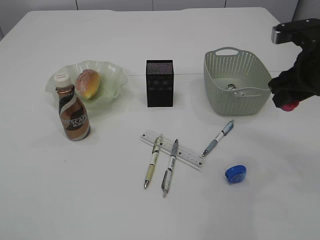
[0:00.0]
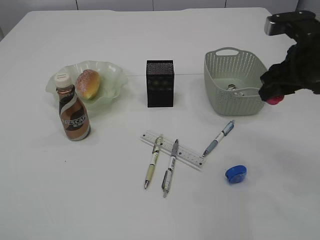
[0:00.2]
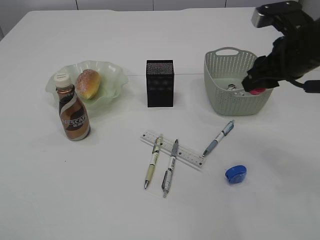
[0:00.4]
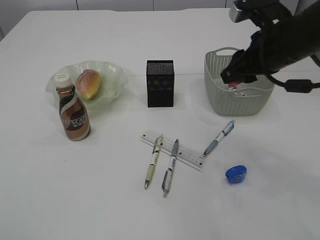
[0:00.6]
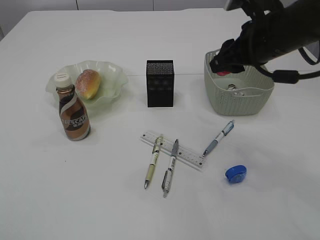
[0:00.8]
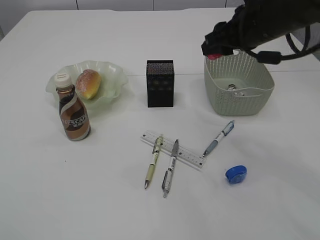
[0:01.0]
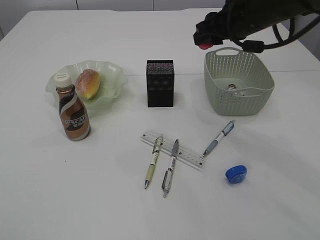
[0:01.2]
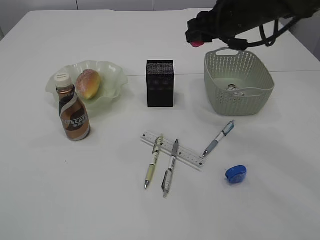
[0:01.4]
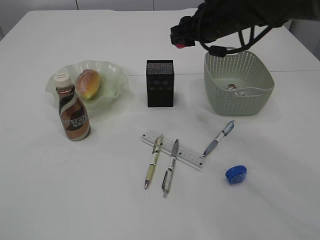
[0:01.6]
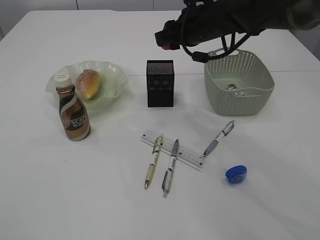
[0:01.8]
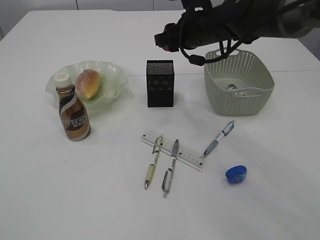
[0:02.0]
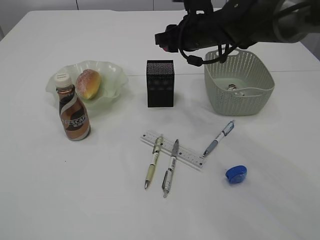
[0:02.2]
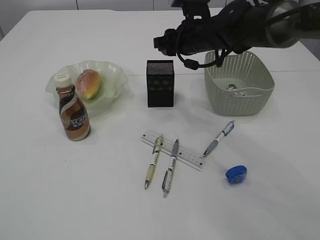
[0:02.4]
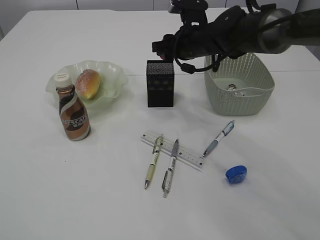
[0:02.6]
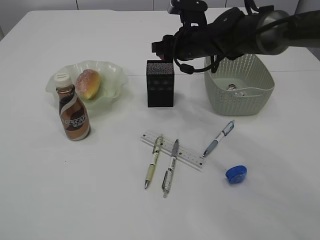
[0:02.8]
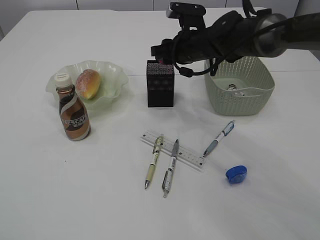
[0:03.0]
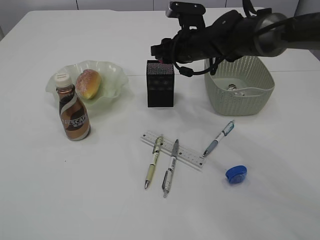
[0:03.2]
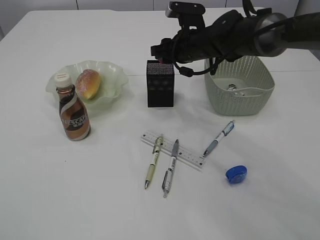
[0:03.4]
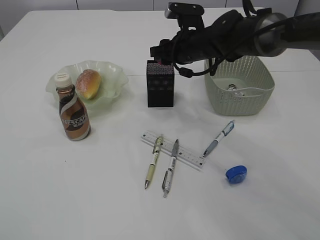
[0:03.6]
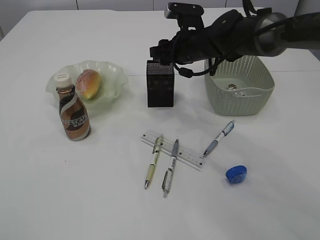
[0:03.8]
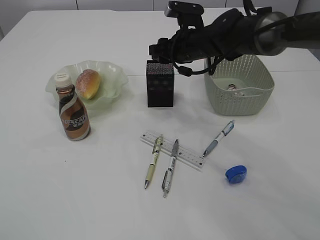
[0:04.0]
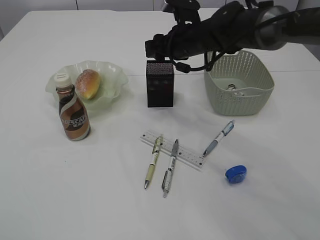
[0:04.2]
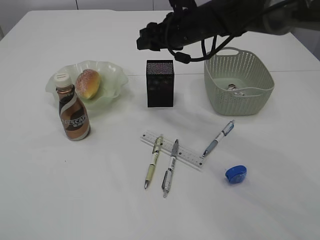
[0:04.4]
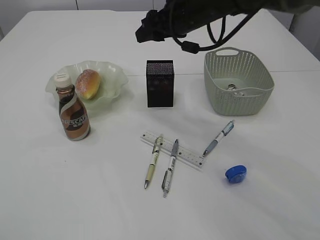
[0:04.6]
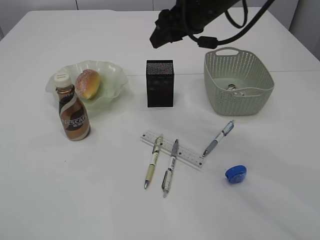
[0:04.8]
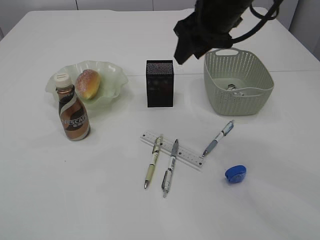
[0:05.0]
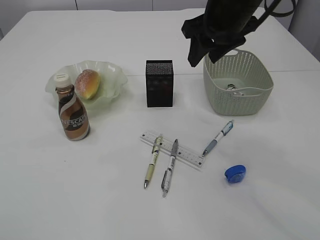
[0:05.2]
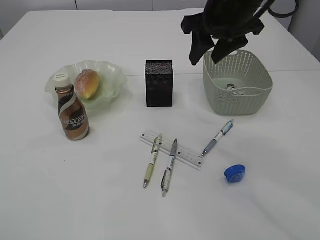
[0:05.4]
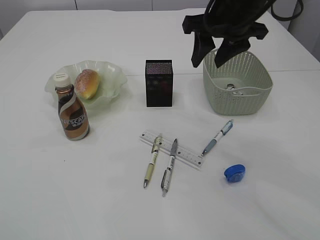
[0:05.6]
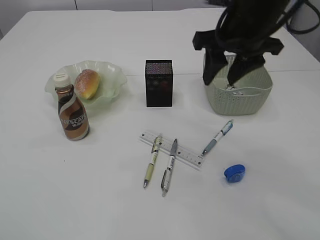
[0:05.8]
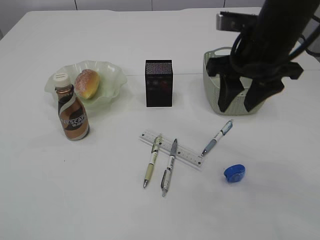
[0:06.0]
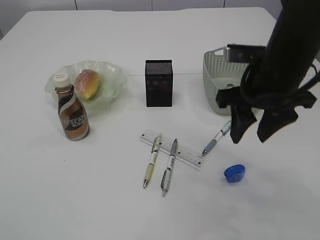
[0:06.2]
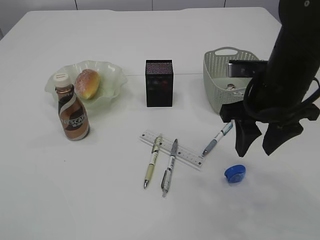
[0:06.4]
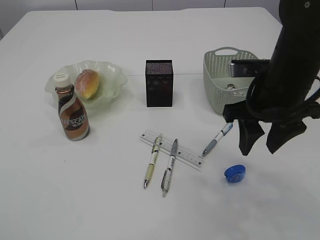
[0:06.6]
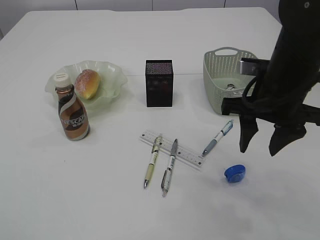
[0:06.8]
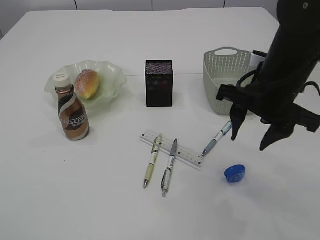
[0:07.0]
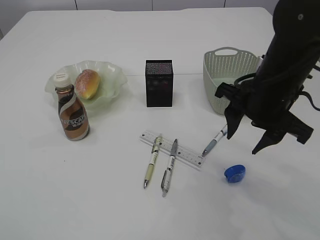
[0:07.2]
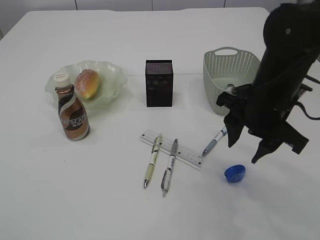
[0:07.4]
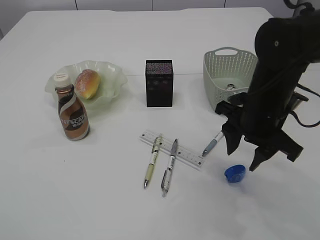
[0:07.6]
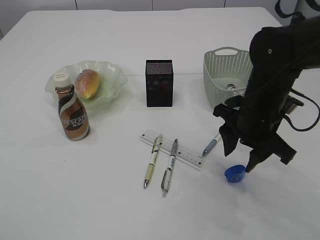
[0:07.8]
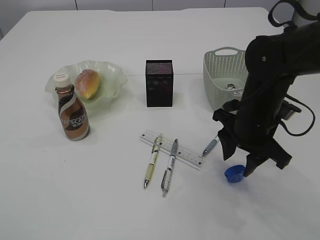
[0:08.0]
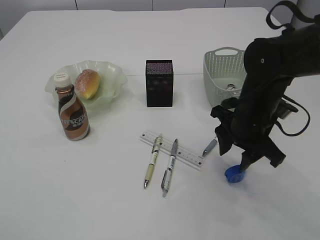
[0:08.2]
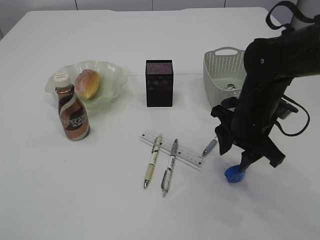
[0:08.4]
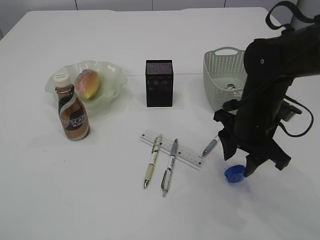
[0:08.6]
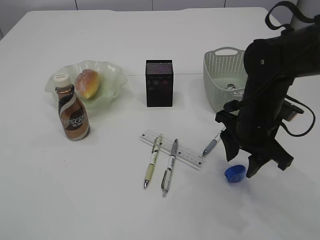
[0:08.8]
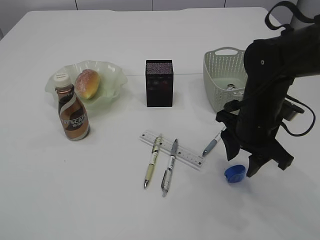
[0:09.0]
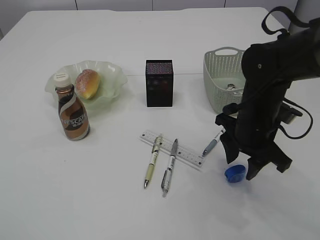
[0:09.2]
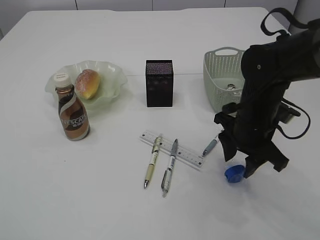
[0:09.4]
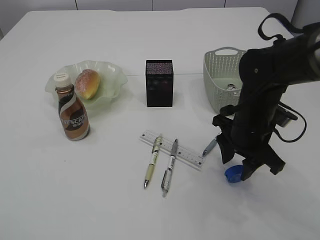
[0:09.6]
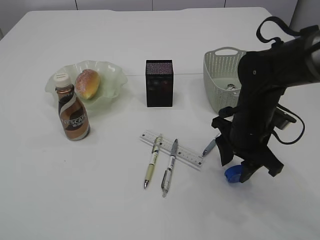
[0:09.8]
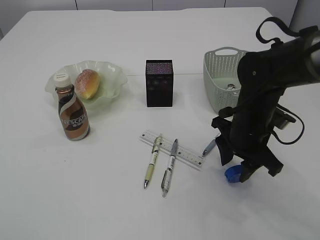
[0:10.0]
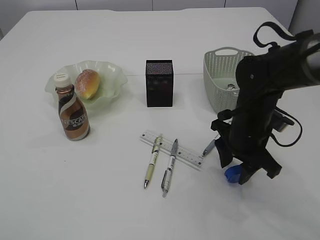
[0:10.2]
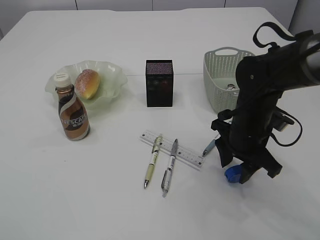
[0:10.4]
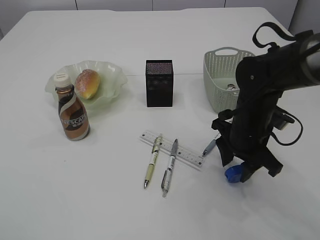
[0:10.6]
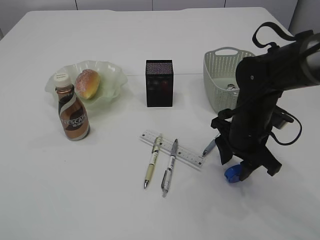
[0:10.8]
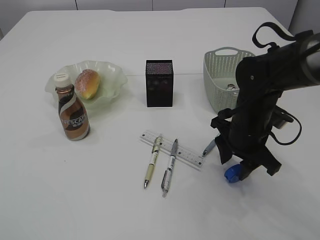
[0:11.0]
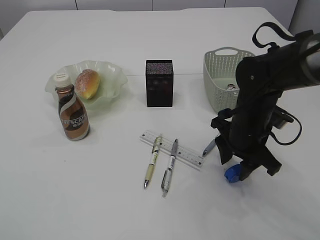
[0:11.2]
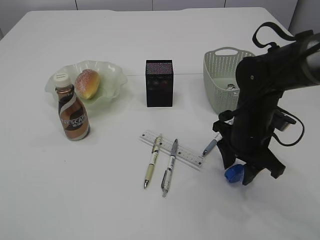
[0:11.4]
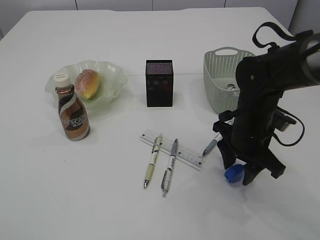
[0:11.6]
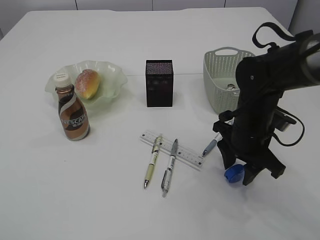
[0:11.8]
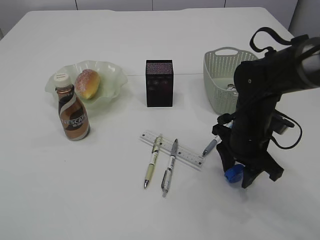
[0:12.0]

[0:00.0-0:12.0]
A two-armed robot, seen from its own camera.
Step, 0:00.0 to 0:04.6: Place the red pencil sharpener into the pen holder.
0:00.0 to 0:01.6: The right gripper travels to the left and forward by some 15 cm.
0:01.6 to 0:03.0: The right gripper heads downward, covering about 5 cm.
0:03.0 to 0:04.4: The grippers make only small movements.
0:04.4 to 0:06.0: The right gripper is displaced backward and to the right by roughly 15 cm.
0:06.0 to 0:07.6: The right gripper moves downward, roughly 10 cm.
0:07.6 to 0:09.0: There are only small adjustments of the grippers.
0:09.0 to 0:10.4: There are only small adjustments of the grippers.
0:10.4 to 0:12.0: Both grippers stay put.

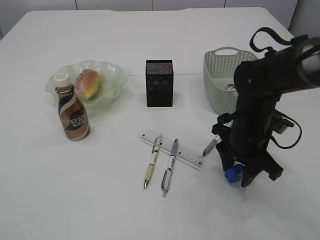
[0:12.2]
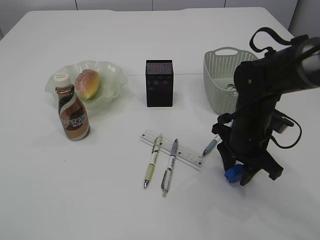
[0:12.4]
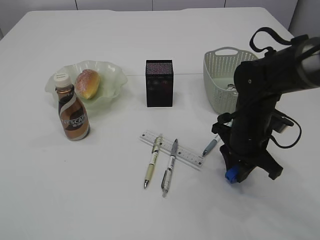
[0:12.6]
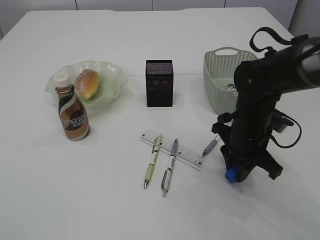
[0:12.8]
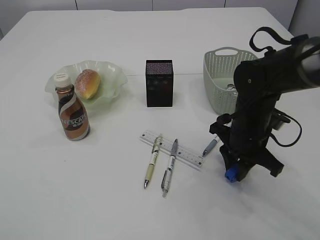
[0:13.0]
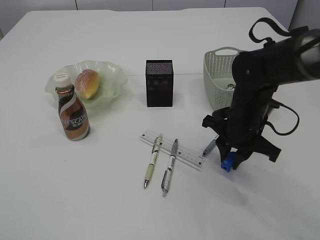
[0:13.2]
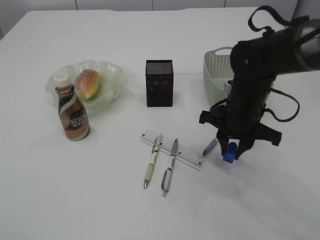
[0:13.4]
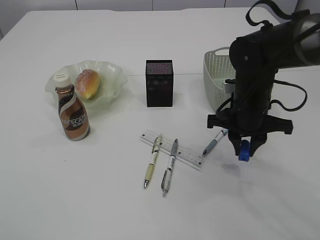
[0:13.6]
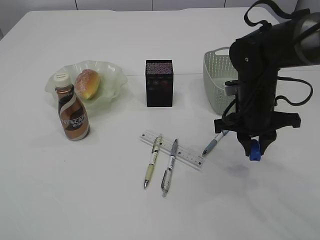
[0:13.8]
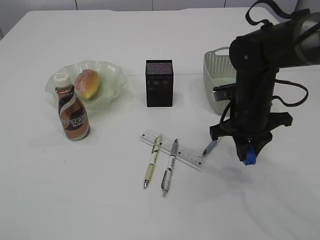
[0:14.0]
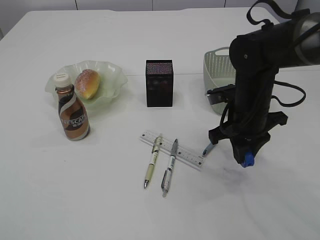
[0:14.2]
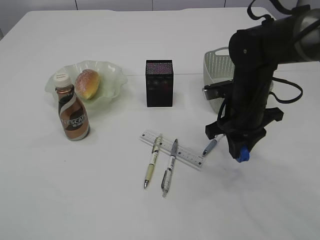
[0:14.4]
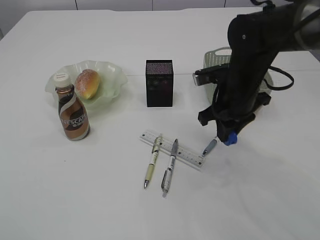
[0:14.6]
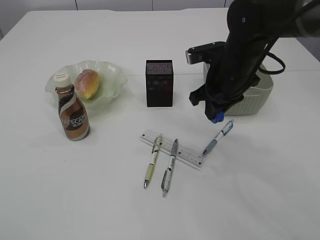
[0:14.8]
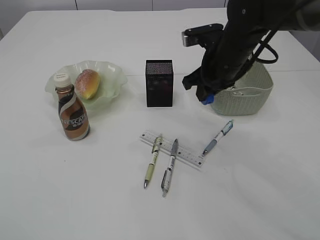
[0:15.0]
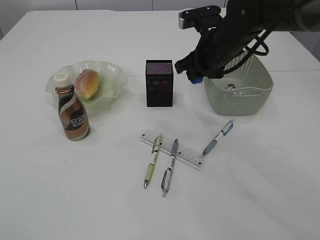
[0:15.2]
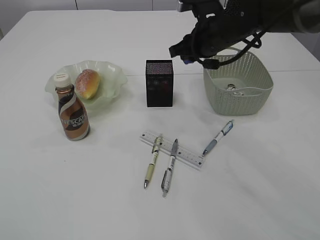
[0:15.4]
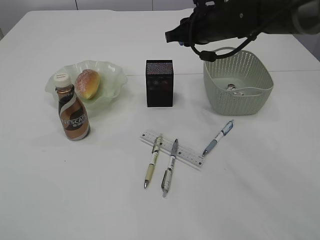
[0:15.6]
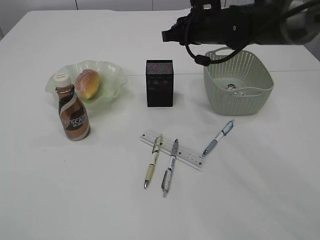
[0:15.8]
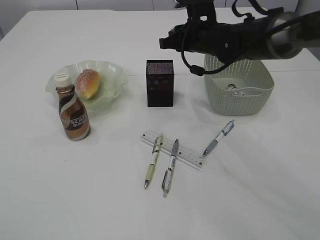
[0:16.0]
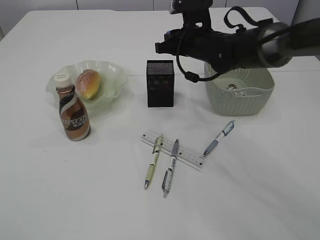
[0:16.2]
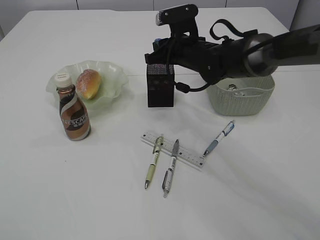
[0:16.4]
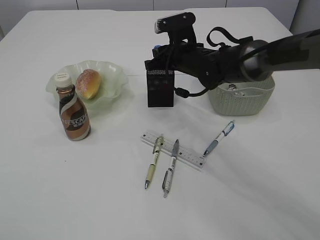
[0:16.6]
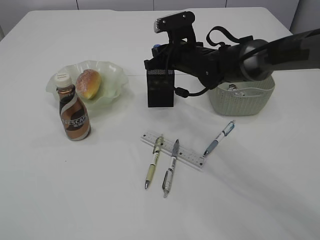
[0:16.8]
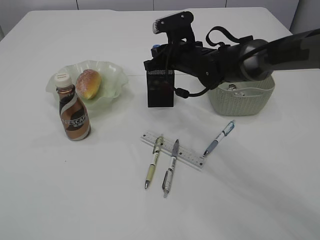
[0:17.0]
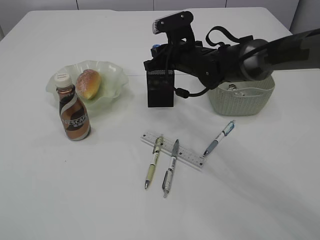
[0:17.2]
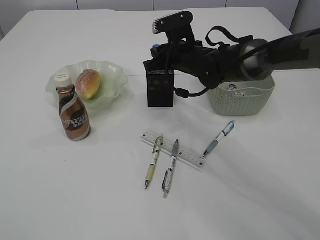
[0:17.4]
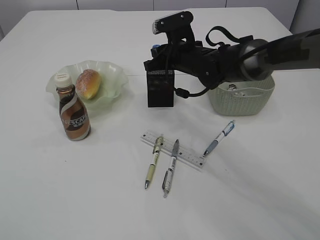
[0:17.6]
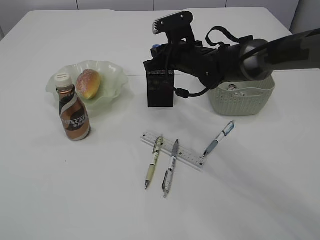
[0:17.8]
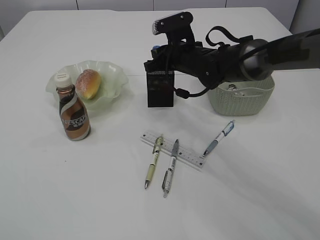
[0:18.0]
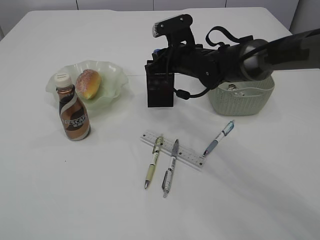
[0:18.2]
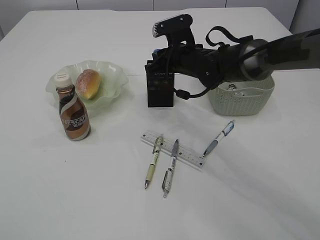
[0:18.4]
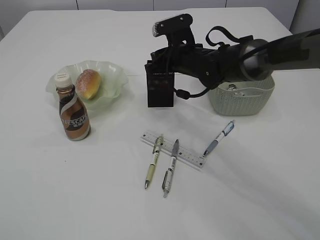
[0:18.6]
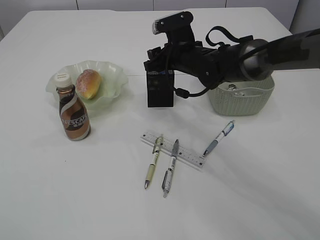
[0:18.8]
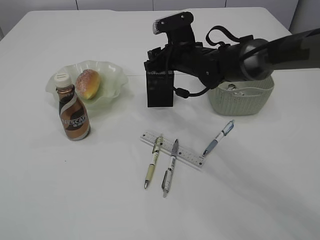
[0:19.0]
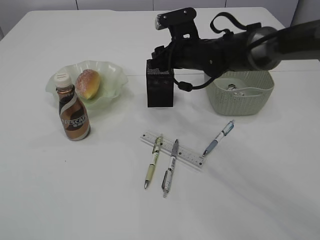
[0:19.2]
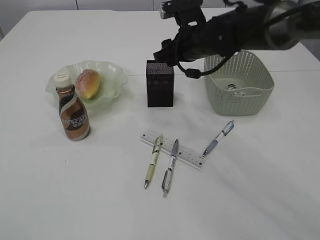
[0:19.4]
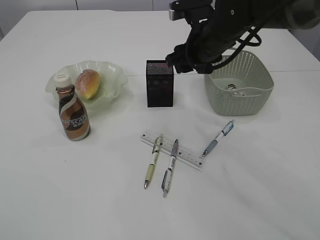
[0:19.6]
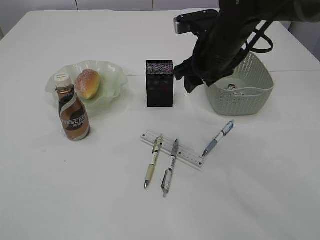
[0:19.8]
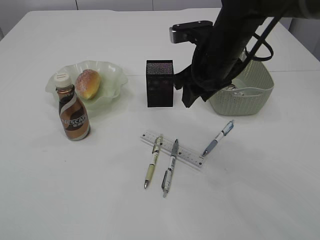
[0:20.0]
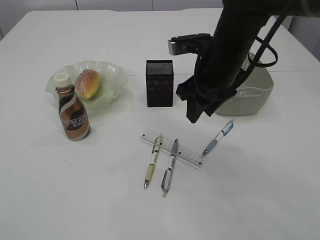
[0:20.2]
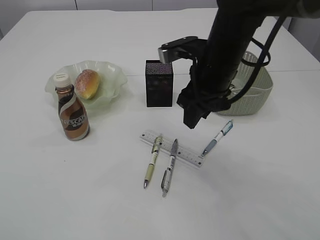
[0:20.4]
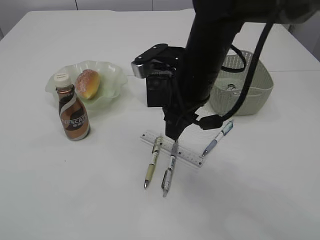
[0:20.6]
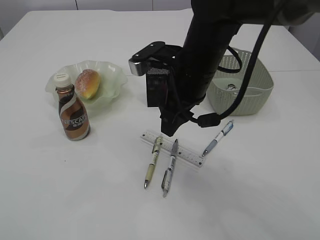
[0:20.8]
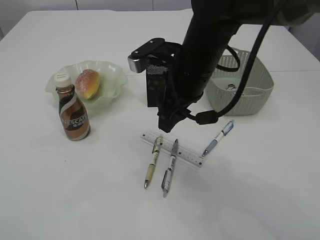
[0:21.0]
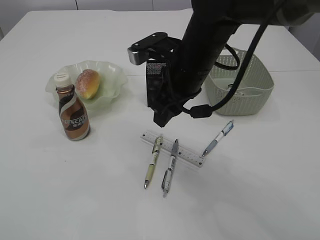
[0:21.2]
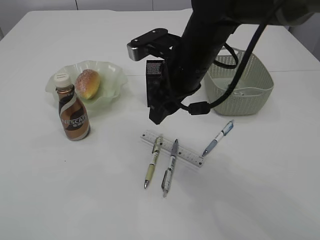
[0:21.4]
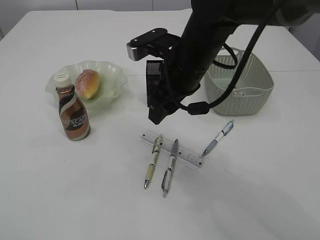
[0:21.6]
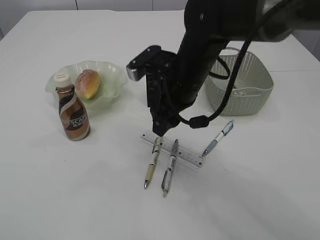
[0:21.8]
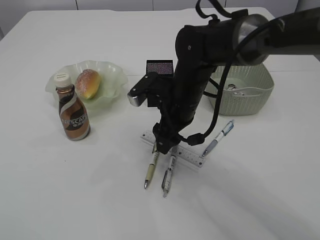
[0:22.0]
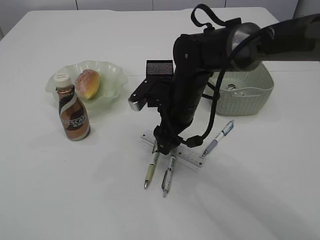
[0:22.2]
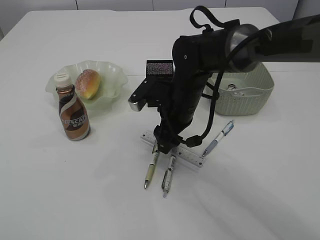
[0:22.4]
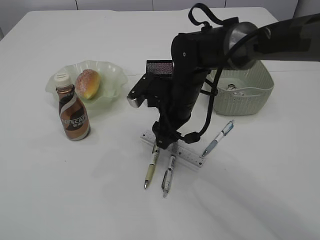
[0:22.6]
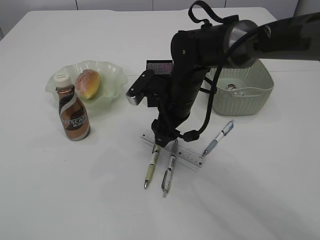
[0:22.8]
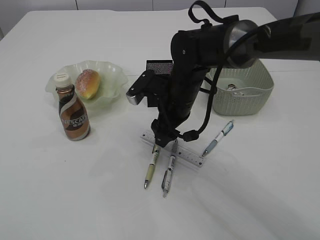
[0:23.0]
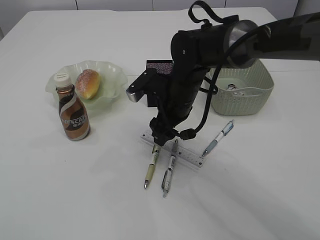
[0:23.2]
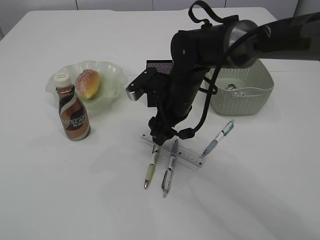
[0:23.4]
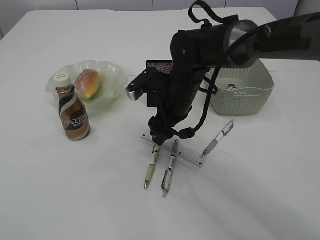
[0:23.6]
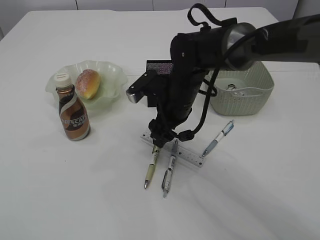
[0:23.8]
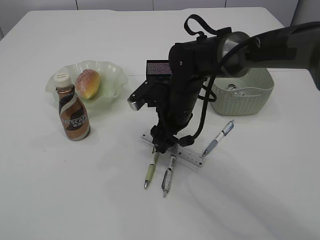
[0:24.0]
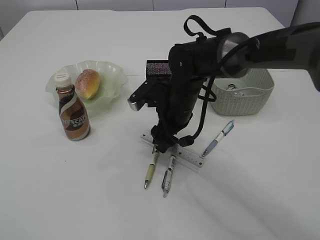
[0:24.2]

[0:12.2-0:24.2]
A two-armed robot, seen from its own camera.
Step, 0:14.0 to 0:19.6: Place the blue pencil sharpener into the pen holder.
0:12.2 to 0:13.8: The right gripper closes up.
0:13.8 to 0:15.2: The right gripper is displaced forward and upward by about 10 cm.
0:15.2 to 0:16.6: The right gripper goes approximately 10 cm forward and downward.
0:16.6 to 0:18.2: Both grippers stay about where they are.
0:18.2 to 0:19.8: The right gripper travels backward and upward by roughly 10 cm, and opens.
0:19.8 to 0:21.2: The right gripper is displaced to the left and backward by approximately 10 cm.
0:21.2 to 0:22.6: The right gripper travels downward by about 10 cm.
0:22.6 to 0:24.2: The grippers move only a little.
